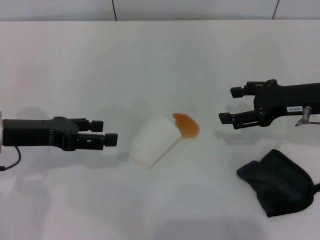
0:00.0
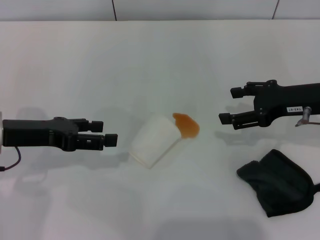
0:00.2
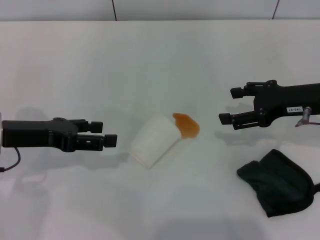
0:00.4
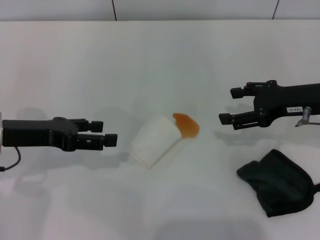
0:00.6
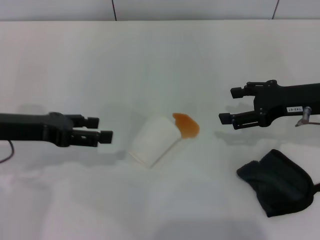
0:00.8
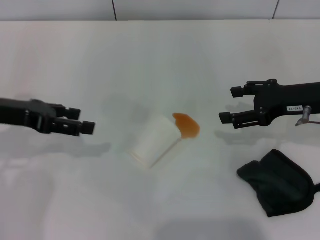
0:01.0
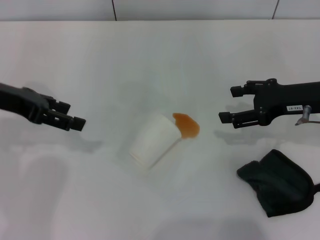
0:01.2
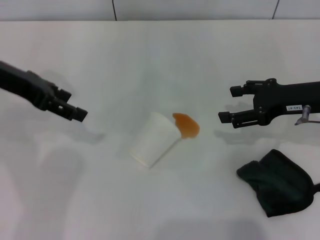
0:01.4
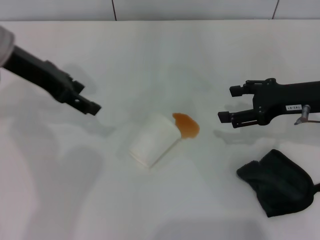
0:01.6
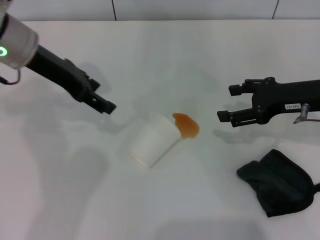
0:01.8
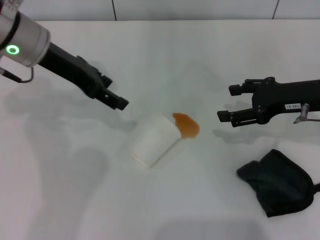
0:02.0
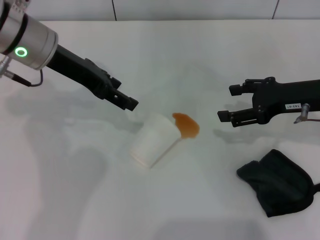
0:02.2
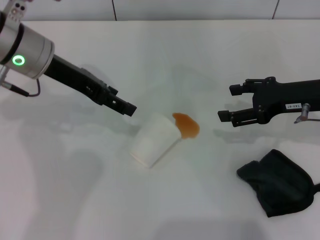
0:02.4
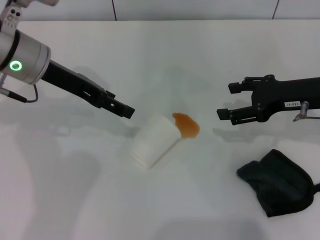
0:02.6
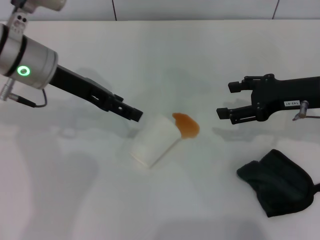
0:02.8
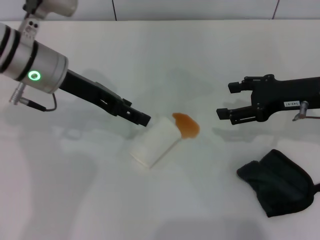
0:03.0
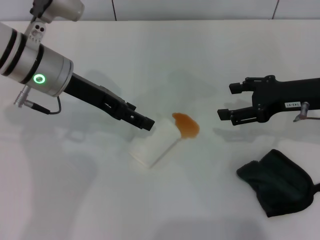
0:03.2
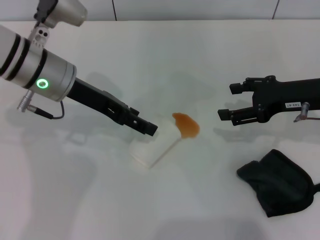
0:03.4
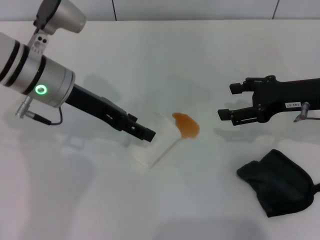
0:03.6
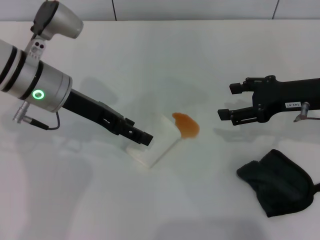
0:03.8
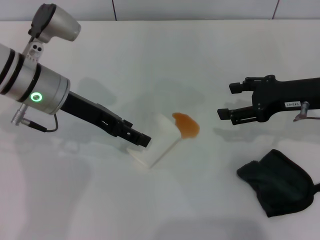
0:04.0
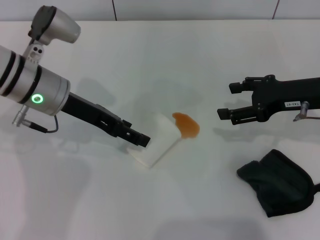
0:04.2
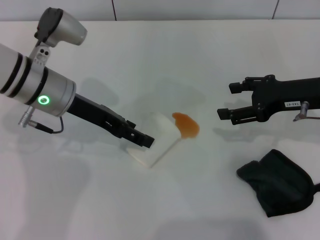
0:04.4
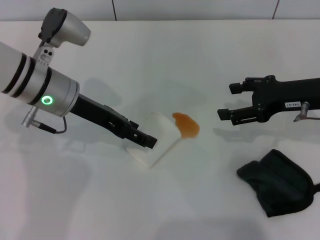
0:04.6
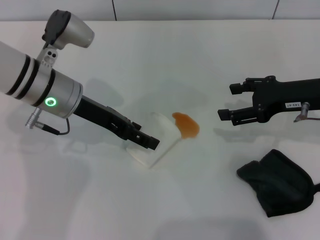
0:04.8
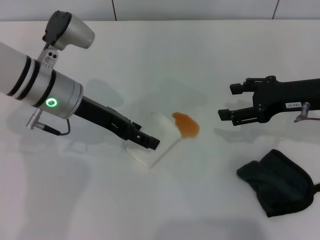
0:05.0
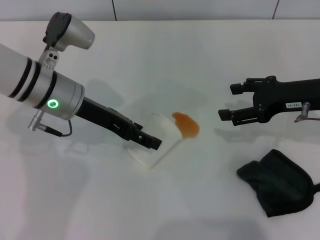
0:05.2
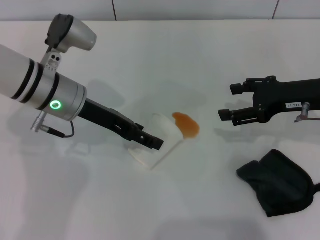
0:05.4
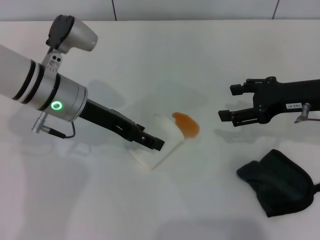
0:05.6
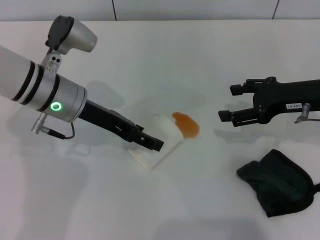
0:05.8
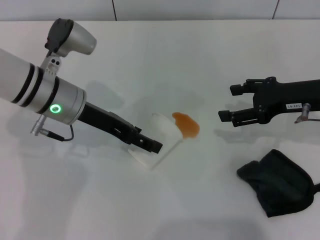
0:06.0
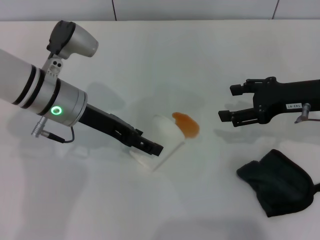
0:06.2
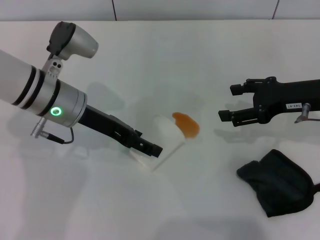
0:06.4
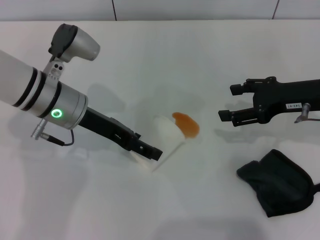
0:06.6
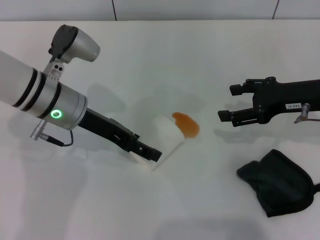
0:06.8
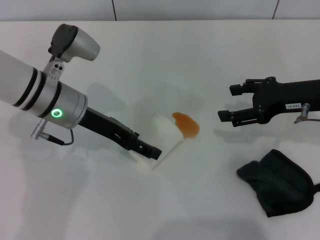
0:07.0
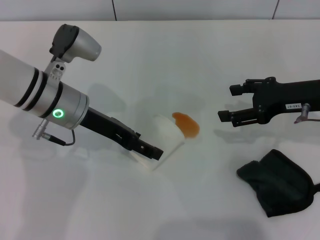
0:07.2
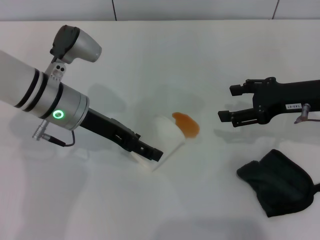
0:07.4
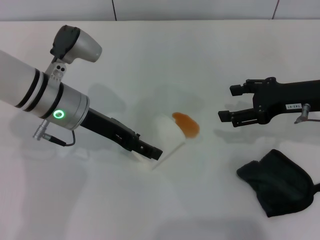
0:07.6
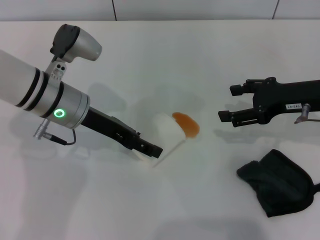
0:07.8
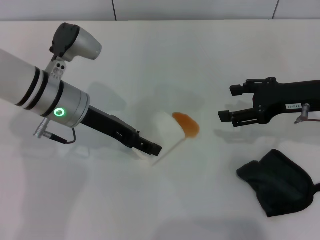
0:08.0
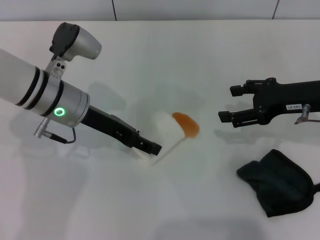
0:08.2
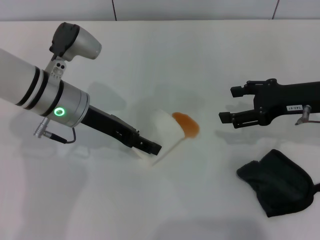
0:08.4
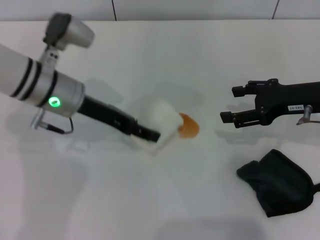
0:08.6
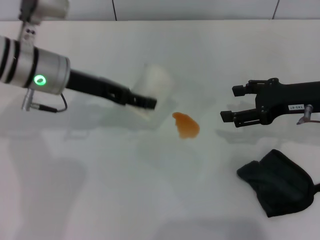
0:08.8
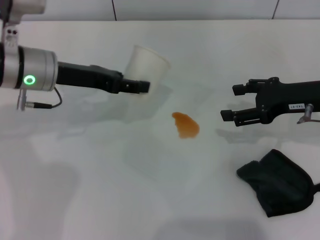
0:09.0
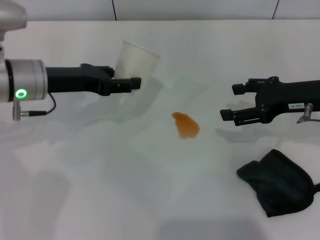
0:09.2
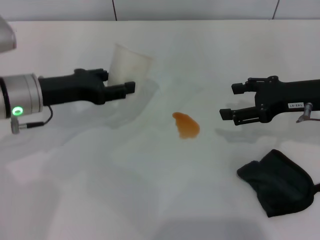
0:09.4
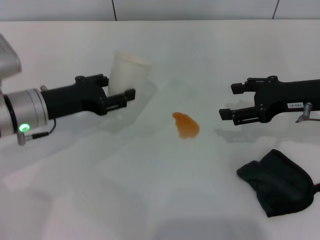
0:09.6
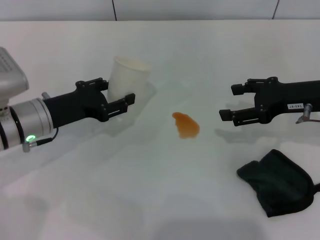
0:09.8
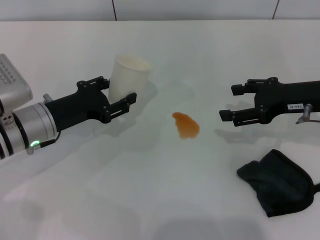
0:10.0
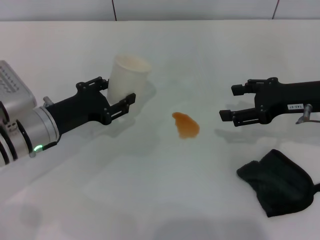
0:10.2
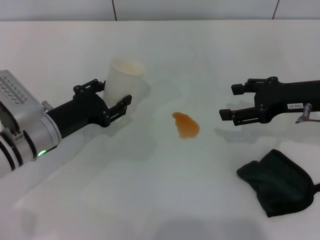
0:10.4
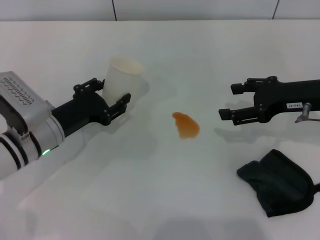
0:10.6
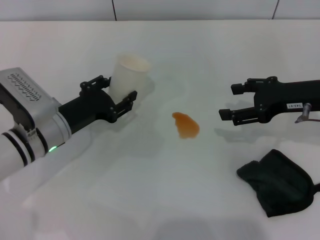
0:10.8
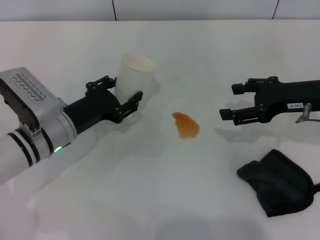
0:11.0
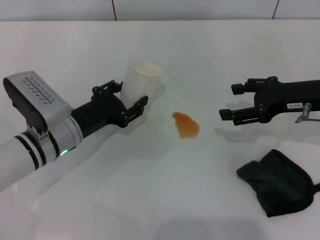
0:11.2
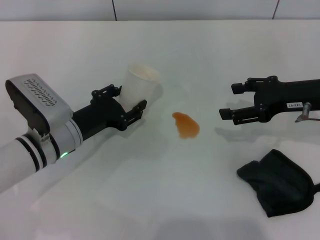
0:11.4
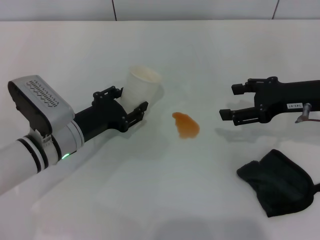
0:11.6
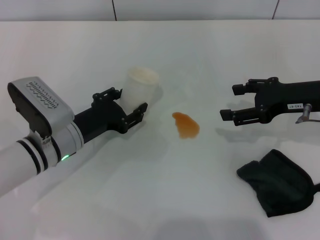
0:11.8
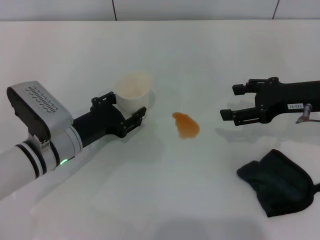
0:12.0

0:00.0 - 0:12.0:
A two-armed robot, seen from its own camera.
Step, 0:00.0 - 0:08.0: Grasp the paper cup with the left gripper.
0:00.0 - 0:01.6: The left gripper moves upward and forward, about 15 cm.
0:01.6 - 0:03.0: The left gripper changes place by roughly 5 cm.
0:03.0 - 0:06.0: The grippers stay close to where they were, moving slightly.
0:06.0 - 0:07.6: Both grippers stay put.
0:07.6 - 0:09.0: The left gripper shifts by approximately 5 cm, and closes.
0:09.0 - 0:10.4: The left gripper travels downward and backward by approximately 15 cm.
0:10.4 - 0:12.0: The grippers move only a little.

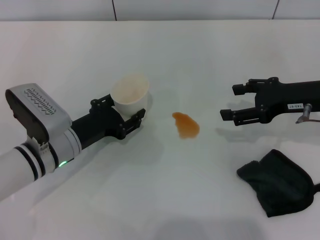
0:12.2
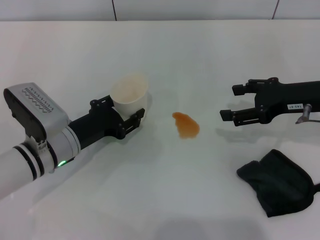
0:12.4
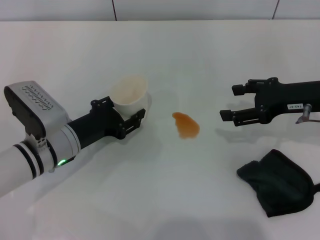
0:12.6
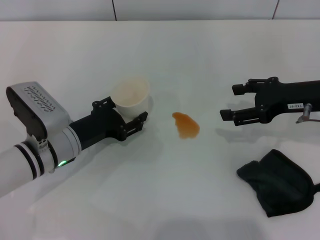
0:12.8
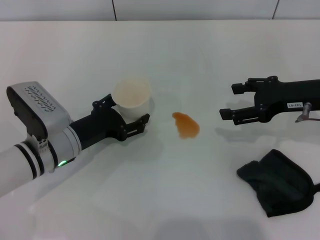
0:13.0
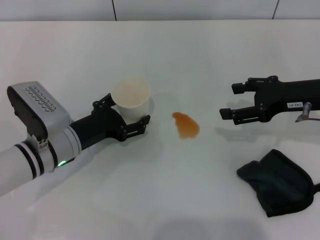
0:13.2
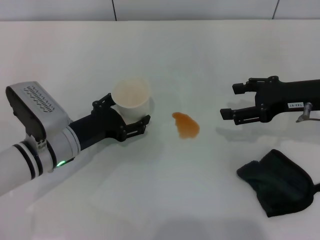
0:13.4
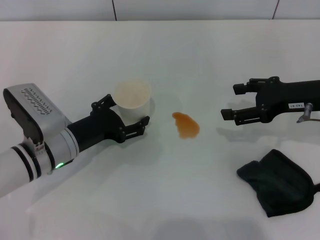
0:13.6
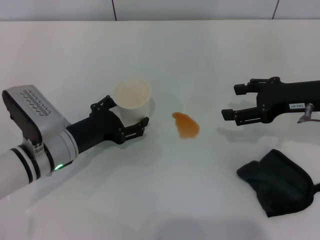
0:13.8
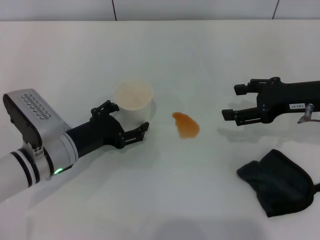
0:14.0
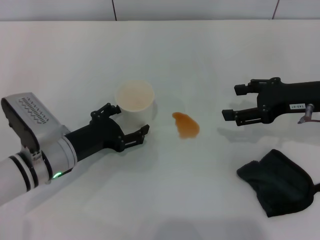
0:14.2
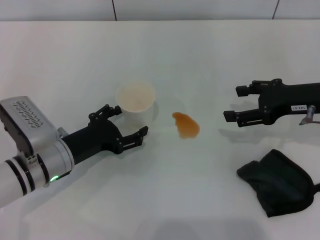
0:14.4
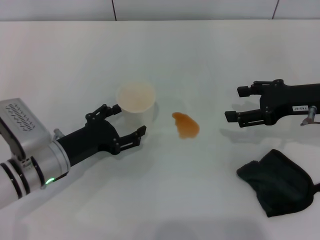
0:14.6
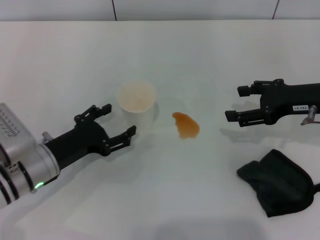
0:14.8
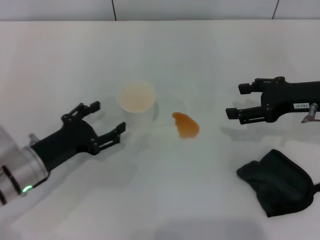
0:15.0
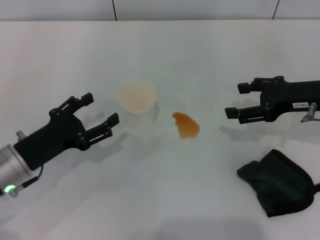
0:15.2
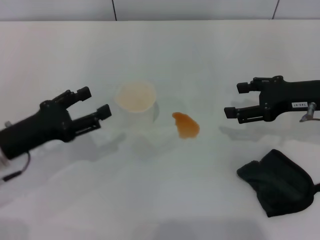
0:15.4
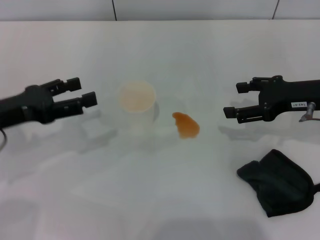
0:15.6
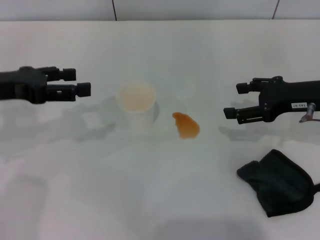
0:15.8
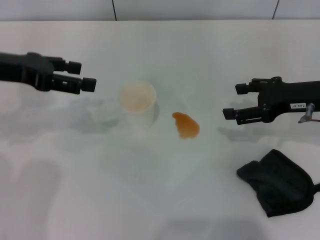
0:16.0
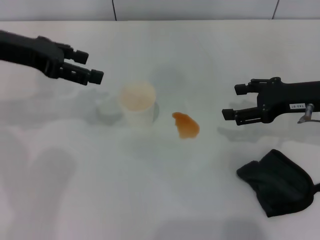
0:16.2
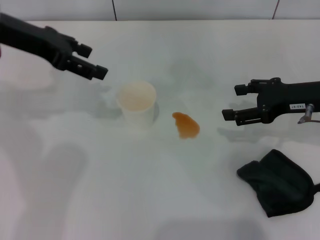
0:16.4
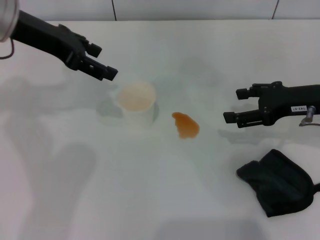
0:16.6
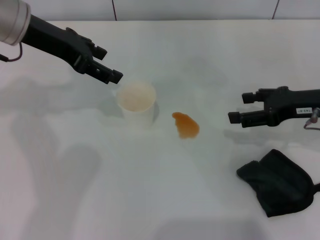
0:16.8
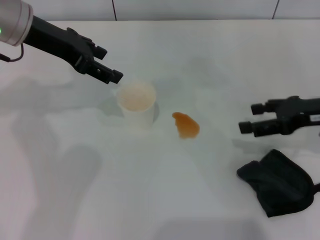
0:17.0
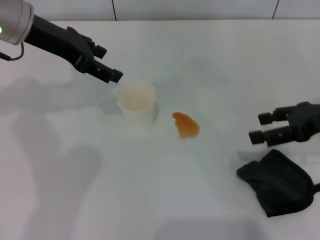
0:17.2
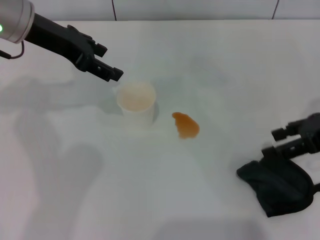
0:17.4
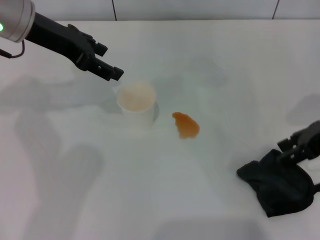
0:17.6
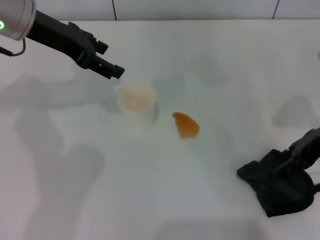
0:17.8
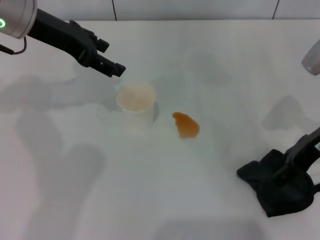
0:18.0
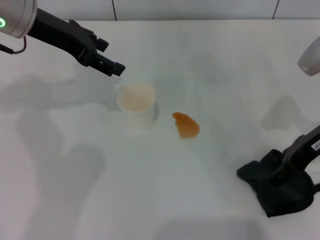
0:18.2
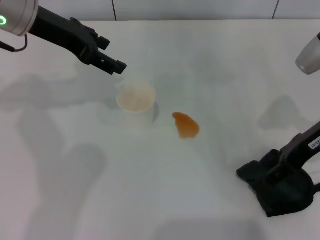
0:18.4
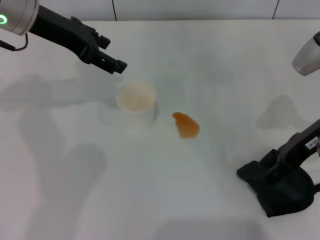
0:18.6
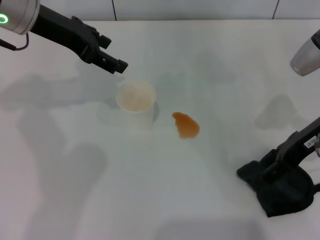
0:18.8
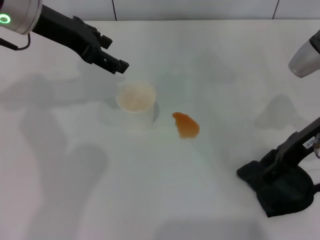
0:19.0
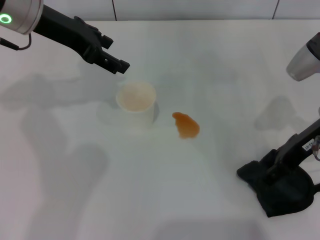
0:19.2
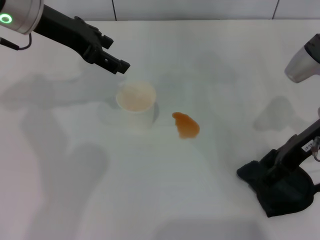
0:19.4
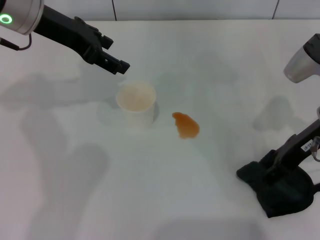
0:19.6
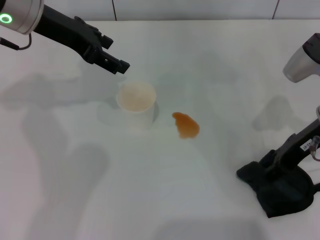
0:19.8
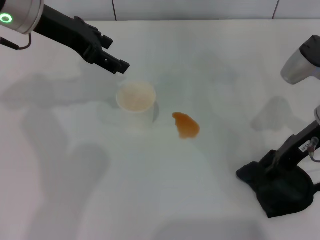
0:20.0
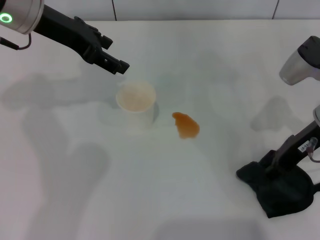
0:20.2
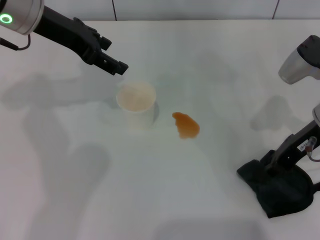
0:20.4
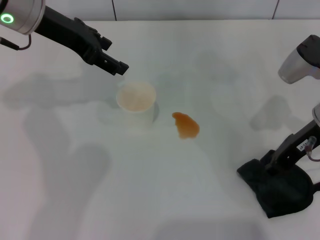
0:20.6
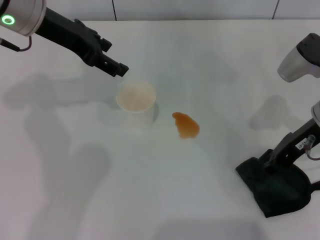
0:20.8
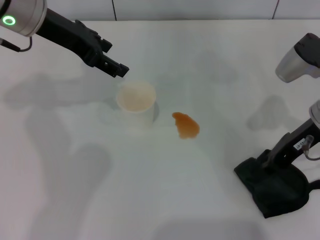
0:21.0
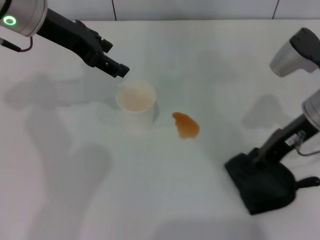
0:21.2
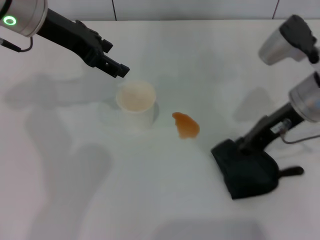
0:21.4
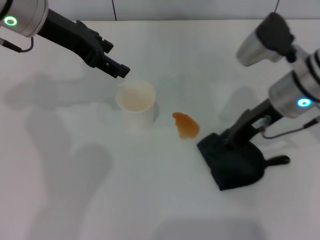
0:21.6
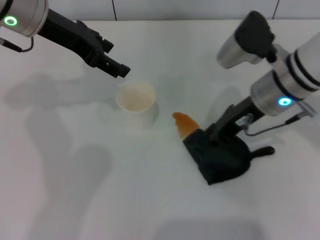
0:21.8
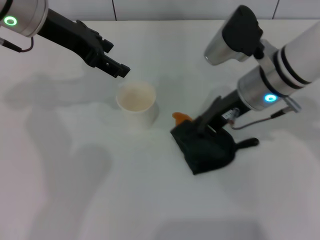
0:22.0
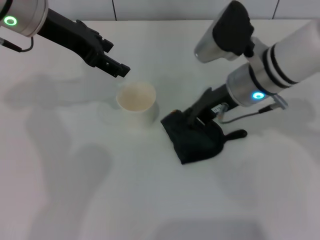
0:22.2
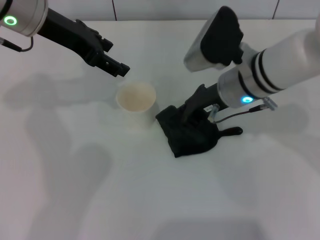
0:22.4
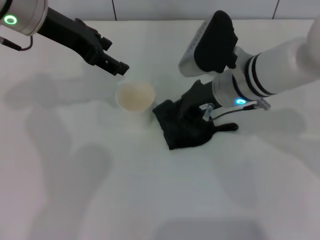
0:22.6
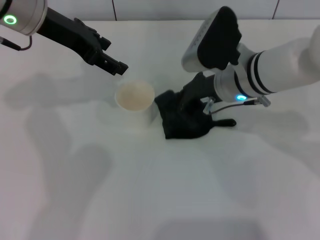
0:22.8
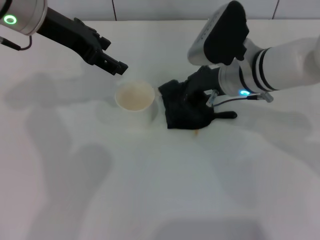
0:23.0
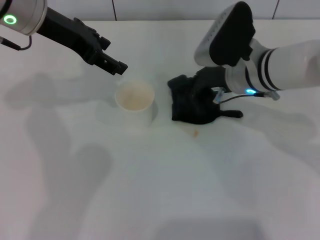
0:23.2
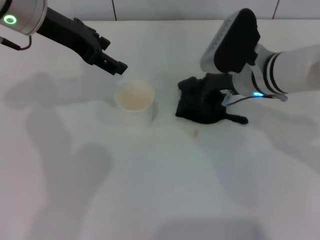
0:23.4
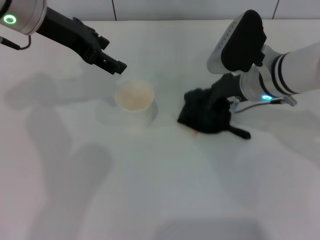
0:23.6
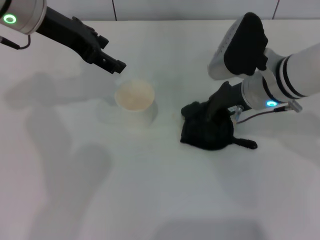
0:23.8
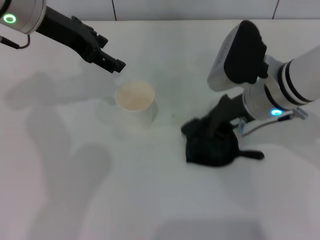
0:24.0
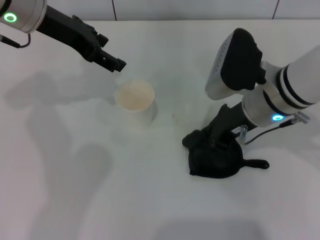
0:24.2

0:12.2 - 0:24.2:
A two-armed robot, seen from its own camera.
Step, 0:12.2 - 0:15.0: Stand the paper cup upright with the left gripper.
Step, 0:15.2 - 0:21.0: Grasp the rag with the right gripper.
0:12.2 - 0:13.8: The left gripper opens.
0:13.8 - 0:15.2: The left gripper shifts about 5 cm to the left.
0:15.2 - 0:16.6: The left gripper heads upward and forward, covering about 25 cm.
0:18.2 - 0:19.8: The grippers make only small movements.
0:19.8 - 0:21.2: The right gripper closes its fingers.
0:21.2 - 0:22.6: The right gripper moves to the left, approximately 10 cm.
0:22.6 - 0:24.2: There are only small adjustments of the grippers.
